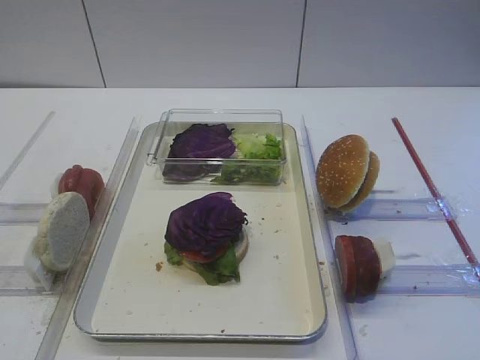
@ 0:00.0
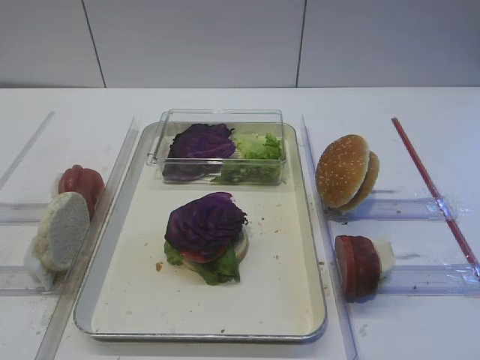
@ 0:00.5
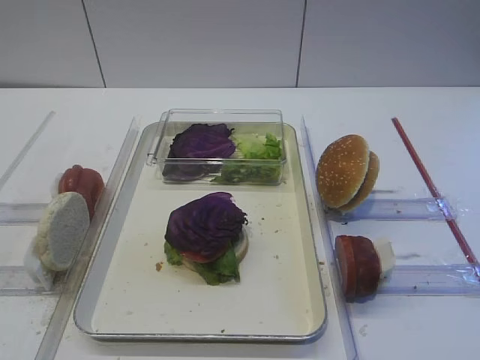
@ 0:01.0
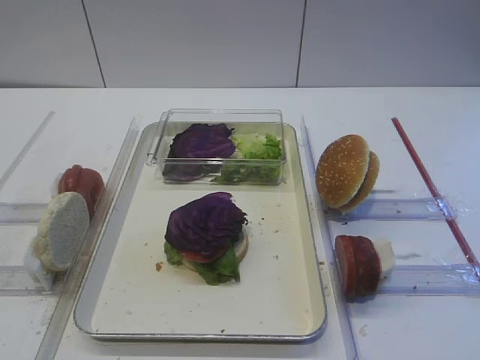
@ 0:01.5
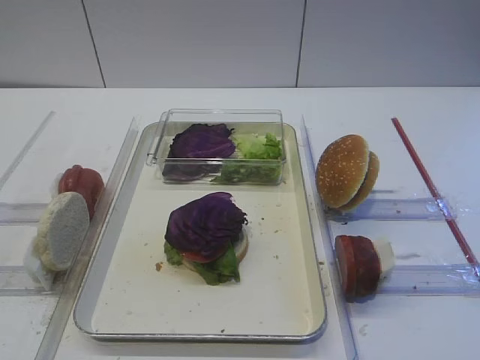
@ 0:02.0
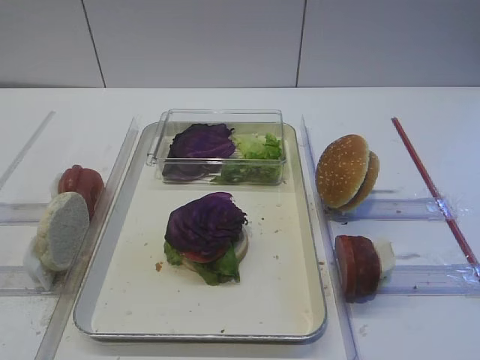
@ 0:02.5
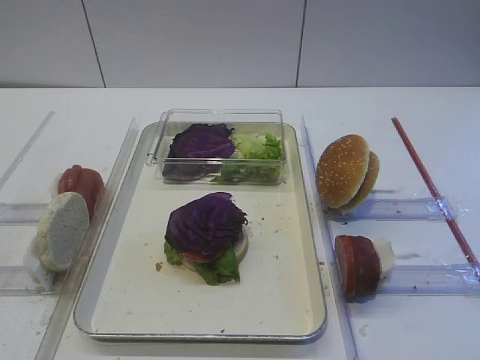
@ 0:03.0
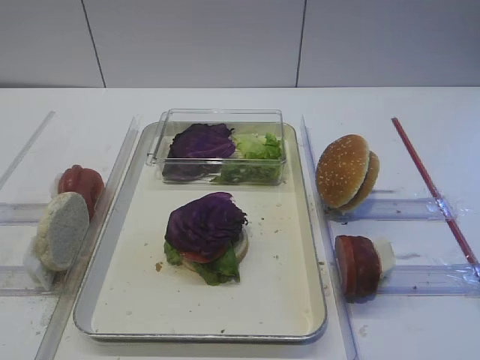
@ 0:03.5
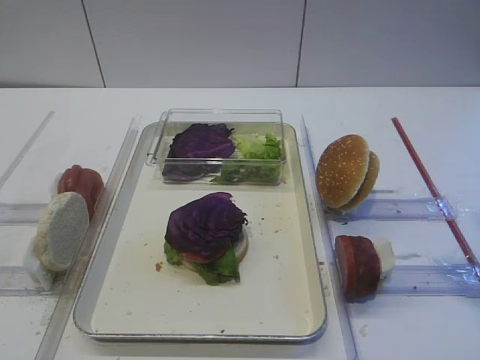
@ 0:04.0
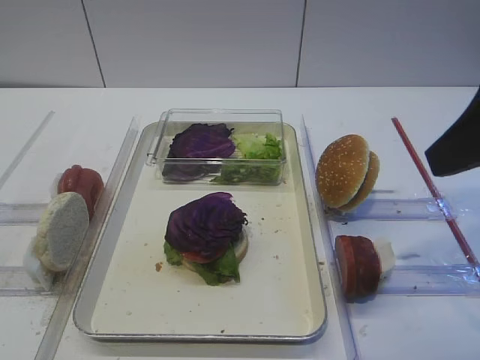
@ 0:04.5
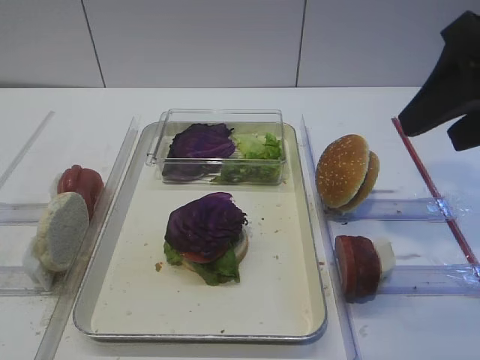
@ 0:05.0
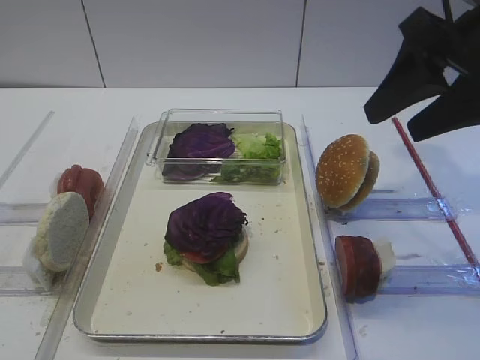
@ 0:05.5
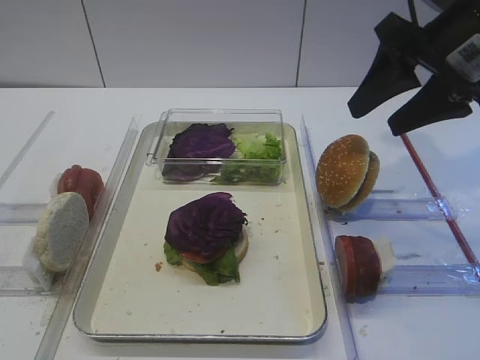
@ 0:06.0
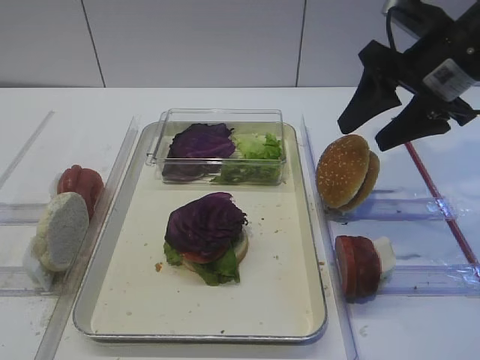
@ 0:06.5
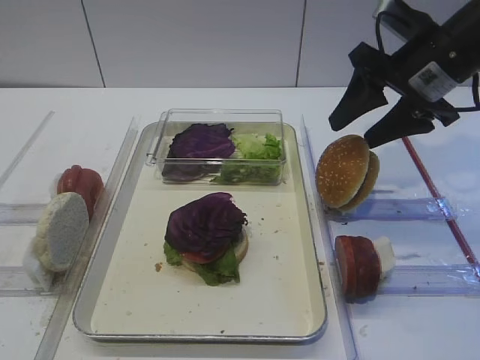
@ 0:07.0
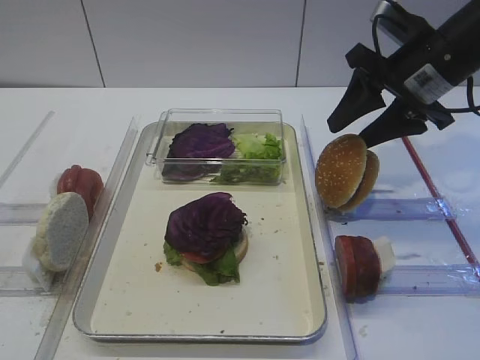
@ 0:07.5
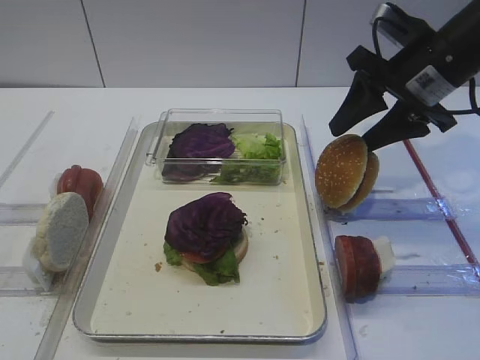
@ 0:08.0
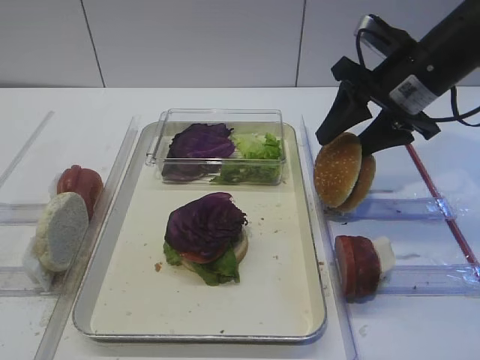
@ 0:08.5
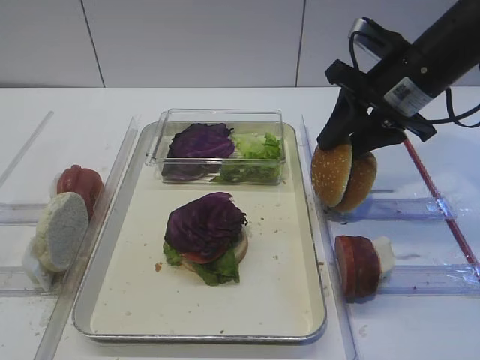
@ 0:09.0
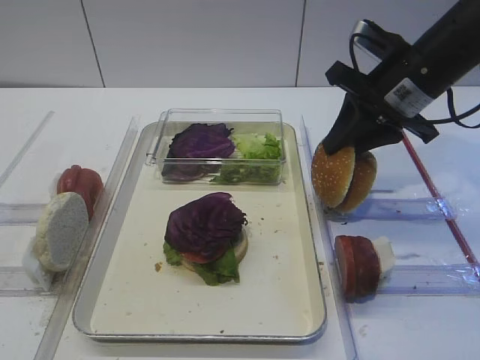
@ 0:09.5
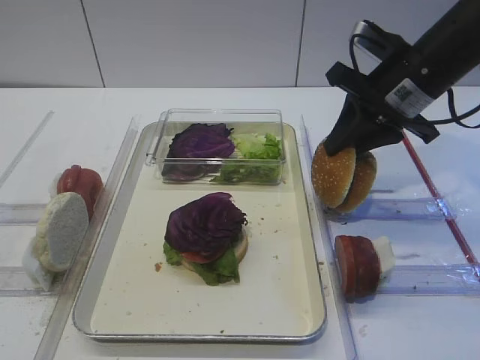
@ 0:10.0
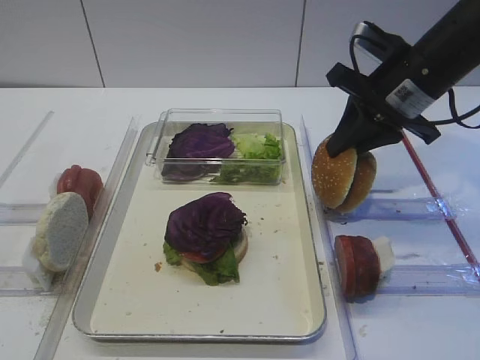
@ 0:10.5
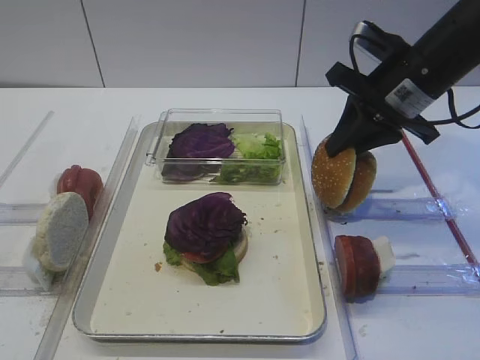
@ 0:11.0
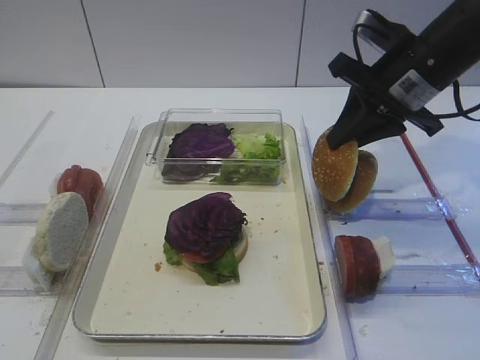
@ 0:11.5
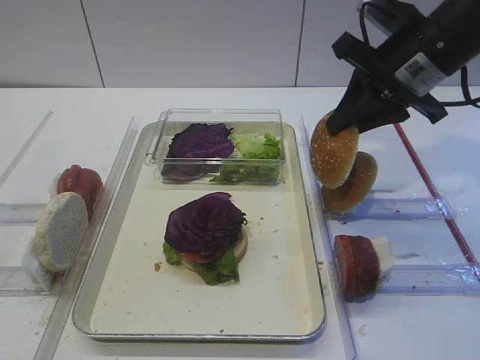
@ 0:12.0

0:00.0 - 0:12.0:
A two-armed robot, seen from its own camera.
Step, 0:00.0 - 0:11.5: Pick up the hamburger lid with the right gripper.
0:04.0 - 0:06.0: The right gripper goes roughly 20 cm forward.
0:06.0 - 0:08.0: The right gripper moves some 5 cm.
0:08.0 - 0:10.0: The right gripper closes up.
0:10.0 - 0:12.0: The grippers move only a little.

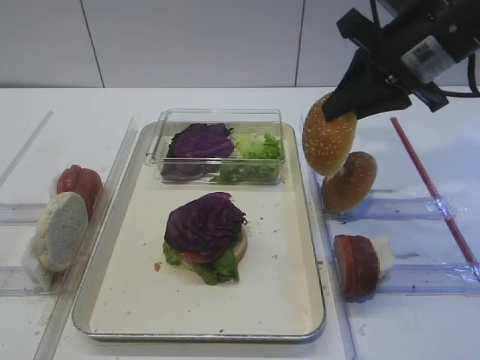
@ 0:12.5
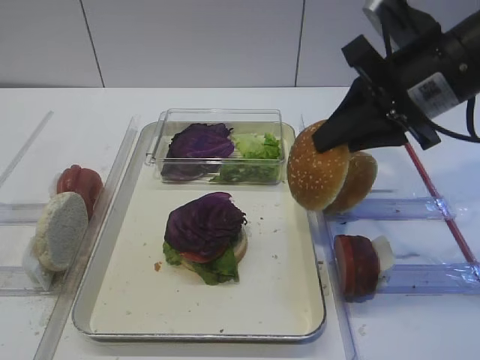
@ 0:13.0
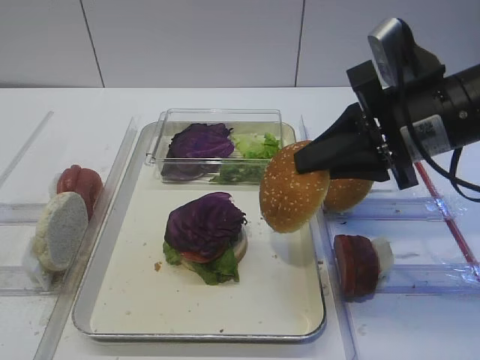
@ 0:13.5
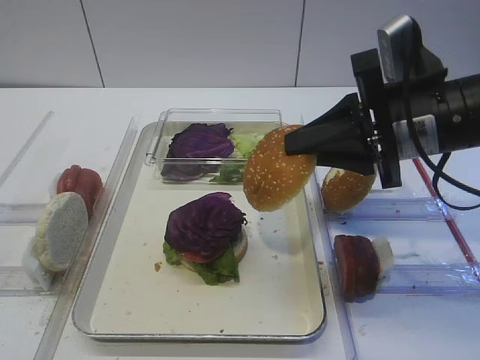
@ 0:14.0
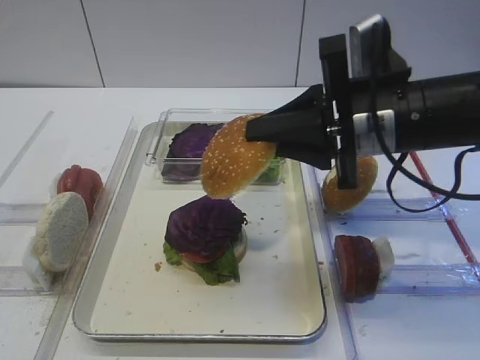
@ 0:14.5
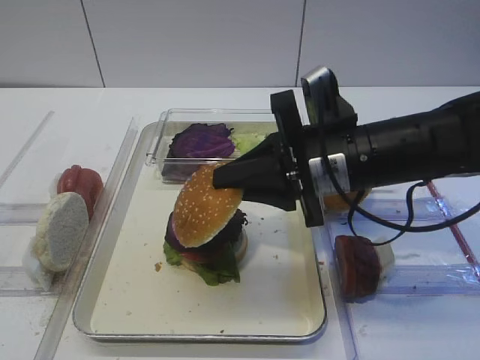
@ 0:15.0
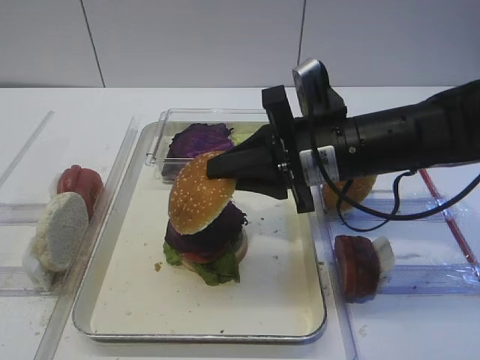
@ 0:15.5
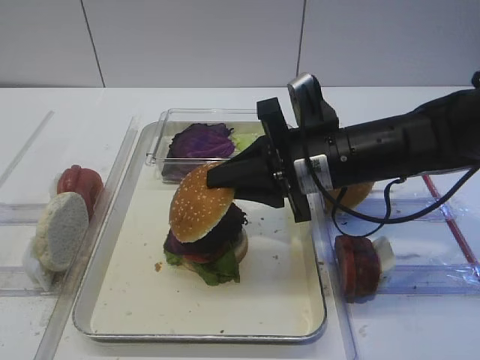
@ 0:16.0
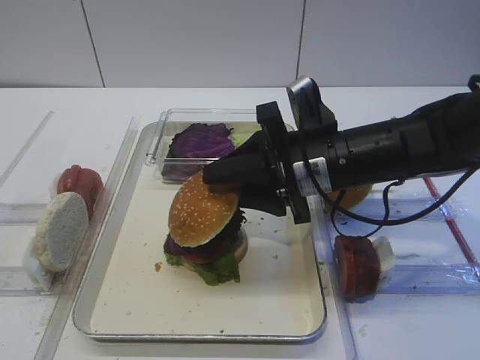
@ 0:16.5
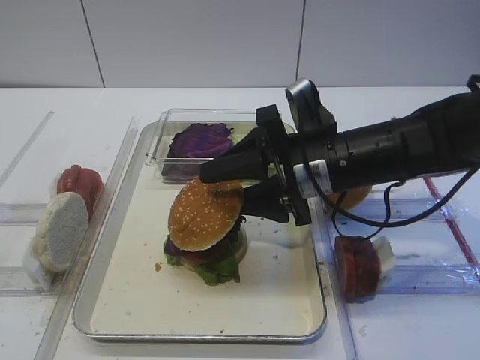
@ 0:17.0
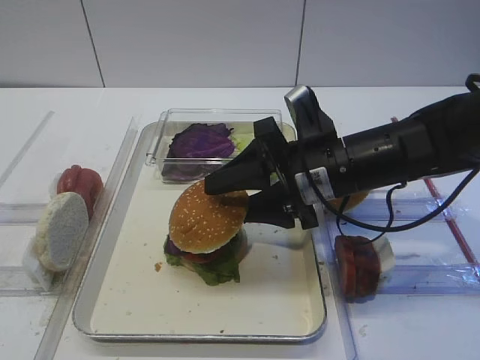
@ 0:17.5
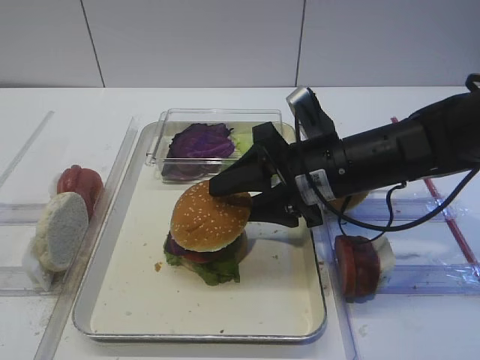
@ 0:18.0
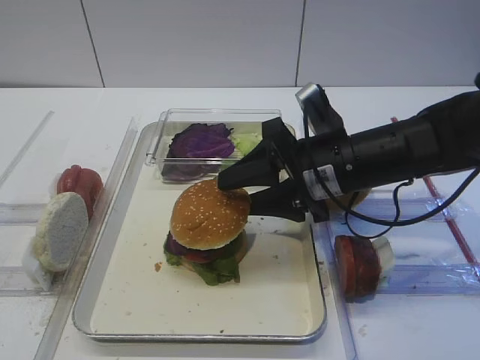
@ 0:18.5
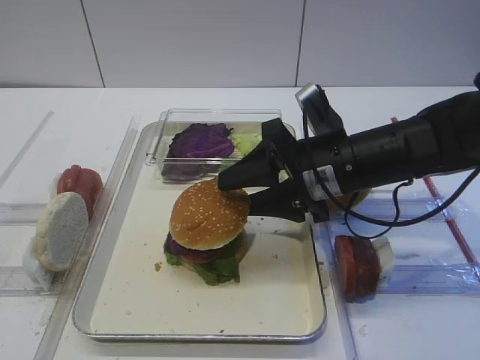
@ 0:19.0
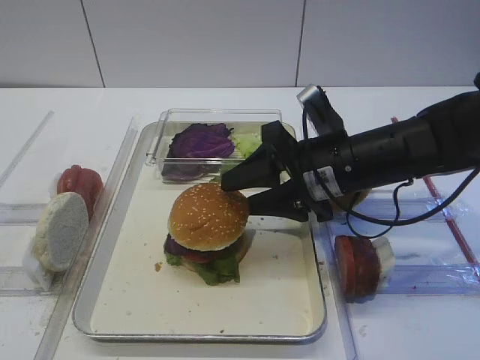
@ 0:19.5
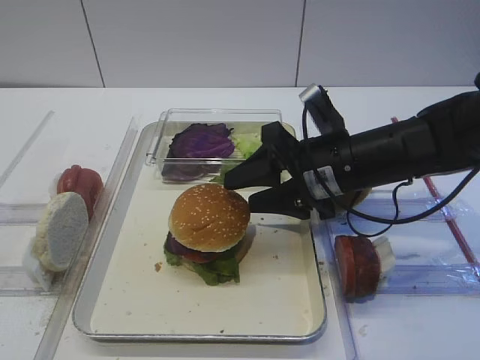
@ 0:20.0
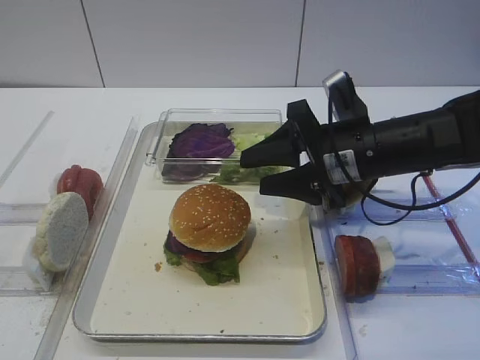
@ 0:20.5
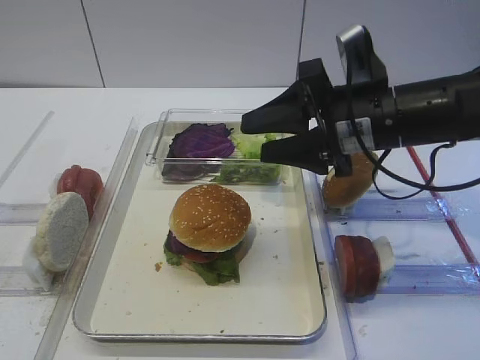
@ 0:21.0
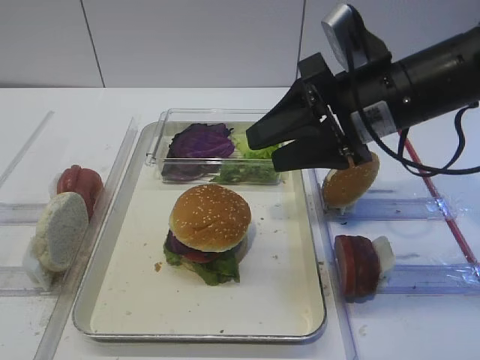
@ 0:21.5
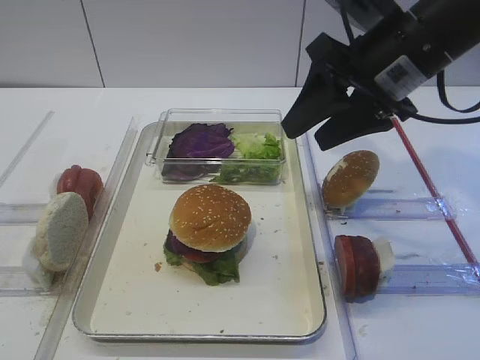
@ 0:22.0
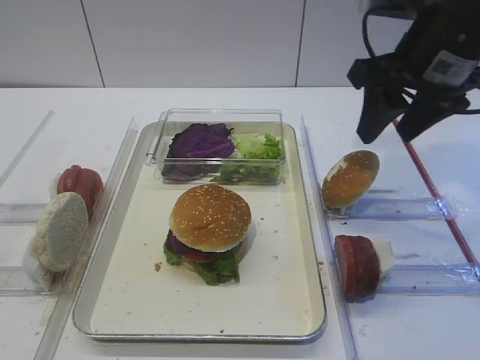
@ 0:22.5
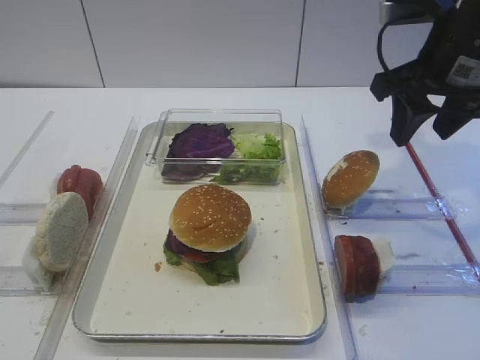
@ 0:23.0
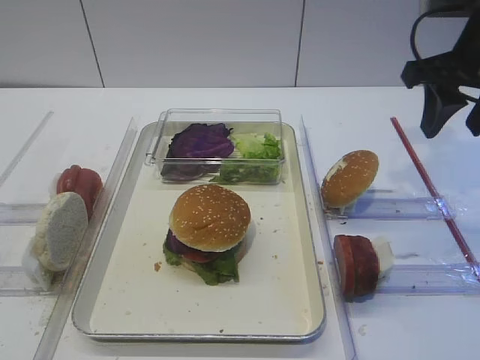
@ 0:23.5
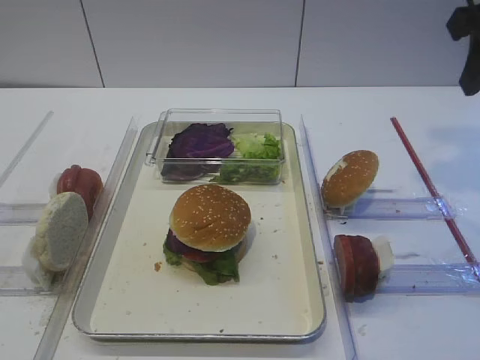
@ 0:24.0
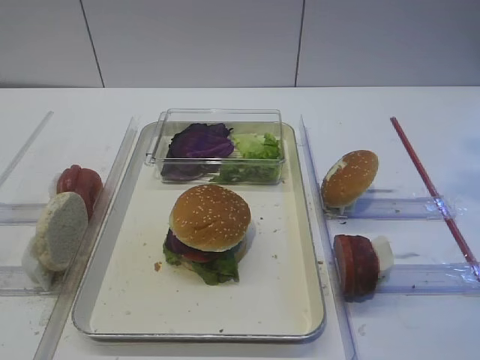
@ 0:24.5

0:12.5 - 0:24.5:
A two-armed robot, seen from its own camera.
Step, 0:12.5 - 0:20.0: Place the hamburger lid on the purple cabbage with the right gripper.
0:12.5 - 0:14.5: The right gripper travels backward and downward by some 10 cm.
0:14.5 - 0:16.5: The right gripper moves downward, approximately 5 cm, and opens.
0:16.5 - 0:20.5: There are only small adjustments of the grippers.
0:20.5 - 0:22.5: The right gripper moves upward, approximately 10 cm.
0:22.5 - 0:24.5: The right gripper heads upward, backward and to the right, covering roughly 15 cm.

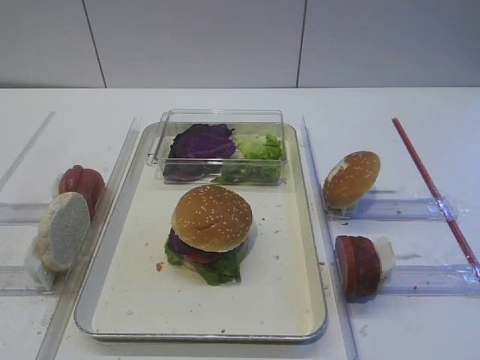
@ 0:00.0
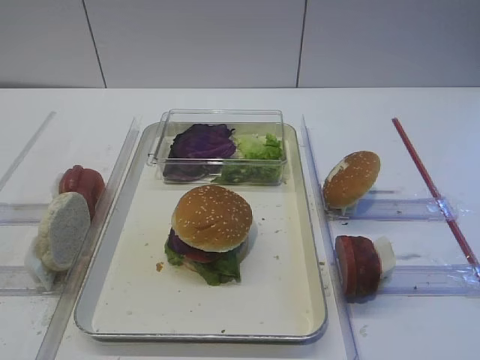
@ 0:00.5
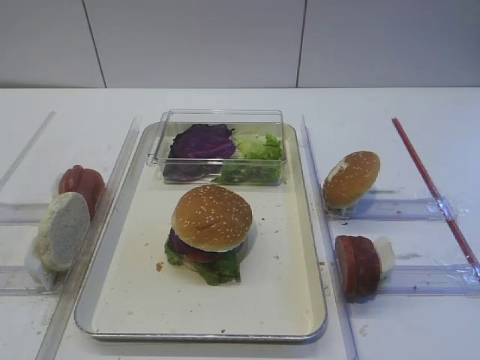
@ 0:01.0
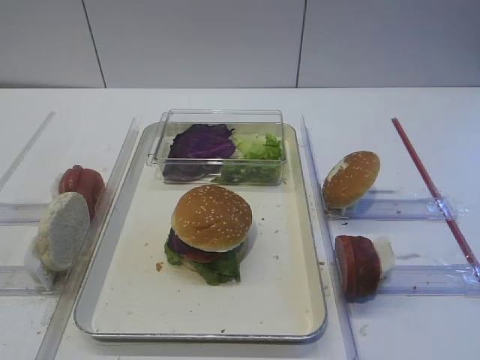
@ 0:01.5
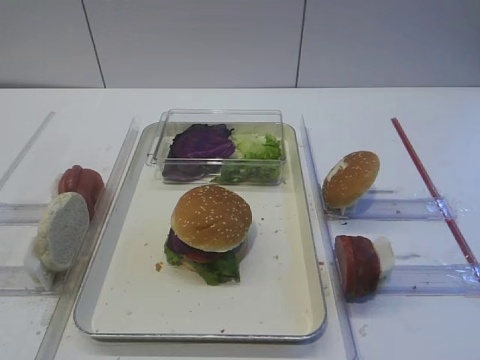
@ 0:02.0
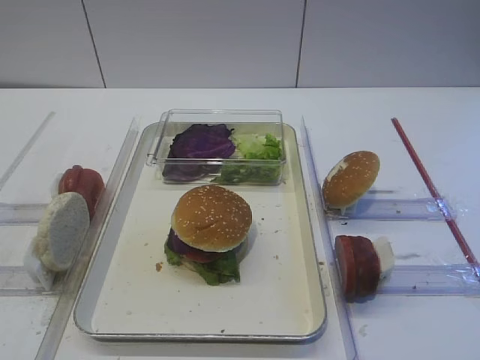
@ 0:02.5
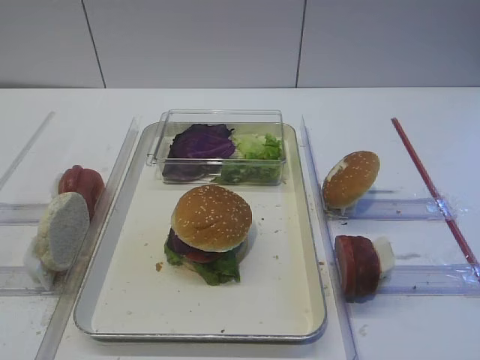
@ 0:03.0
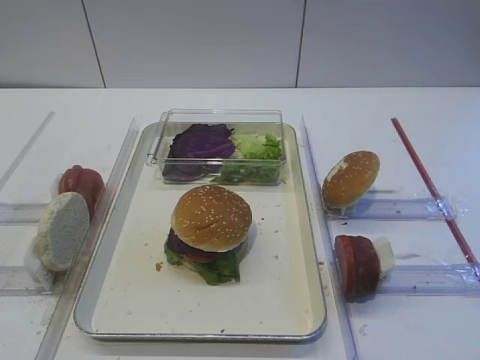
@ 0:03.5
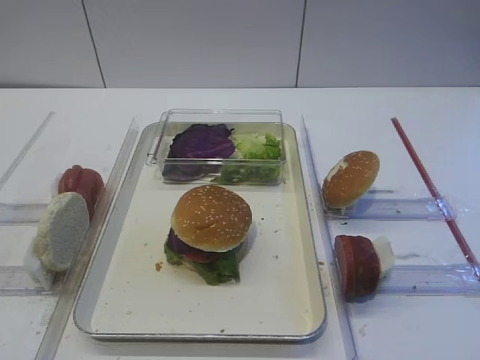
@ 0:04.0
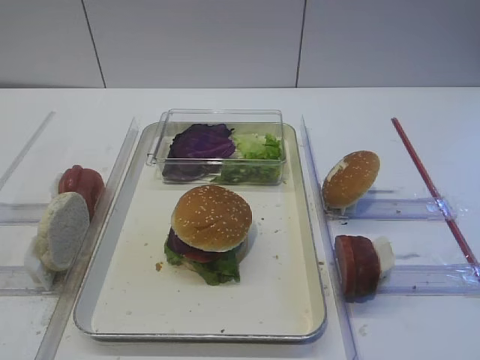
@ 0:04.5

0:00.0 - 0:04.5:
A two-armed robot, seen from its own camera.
0:00.0 - 0:04.5: The two grippers keep their place.
